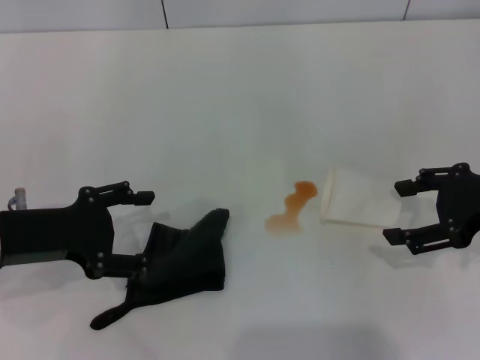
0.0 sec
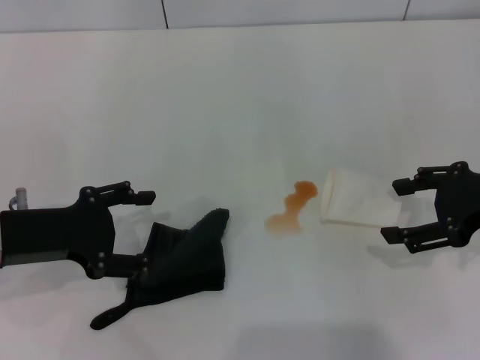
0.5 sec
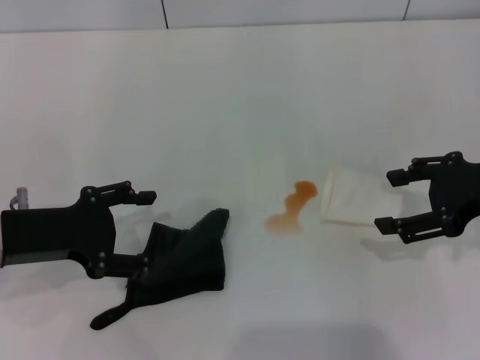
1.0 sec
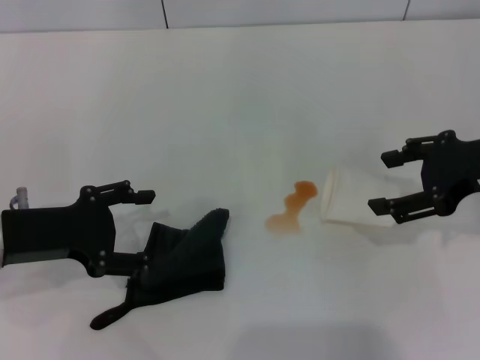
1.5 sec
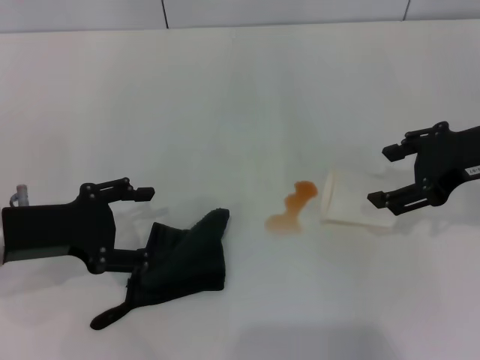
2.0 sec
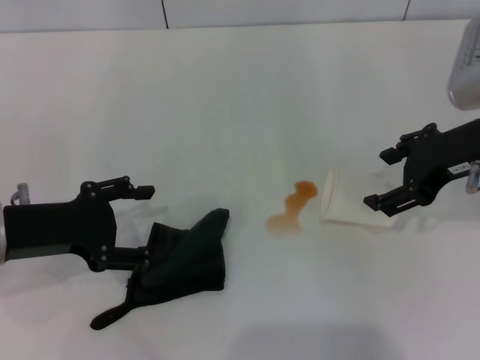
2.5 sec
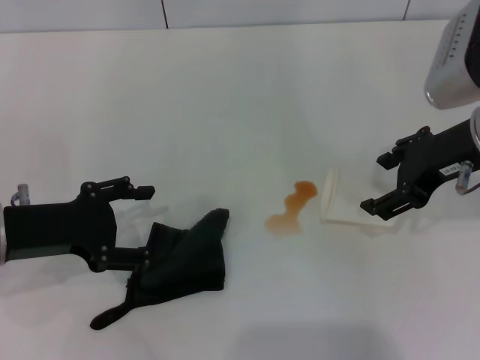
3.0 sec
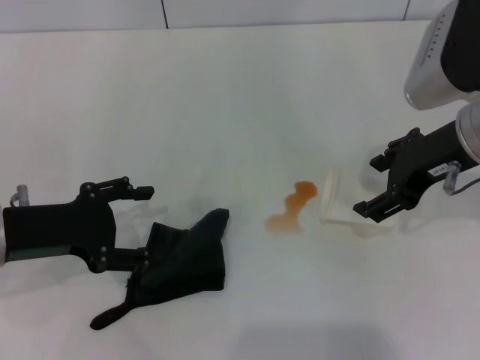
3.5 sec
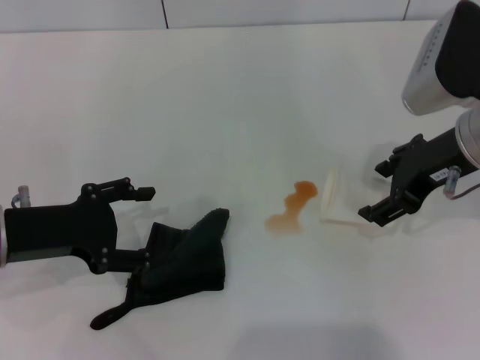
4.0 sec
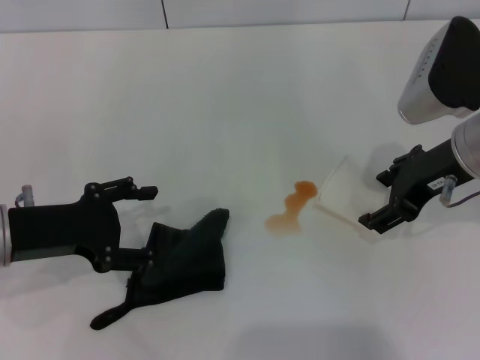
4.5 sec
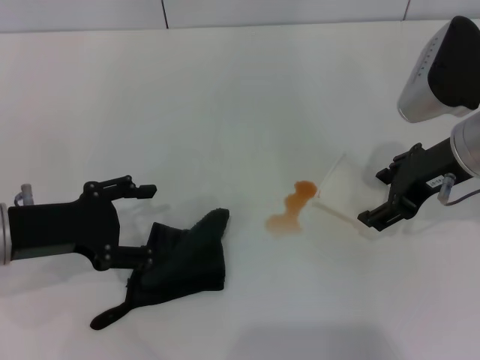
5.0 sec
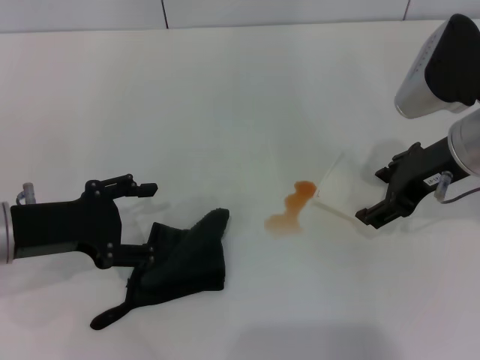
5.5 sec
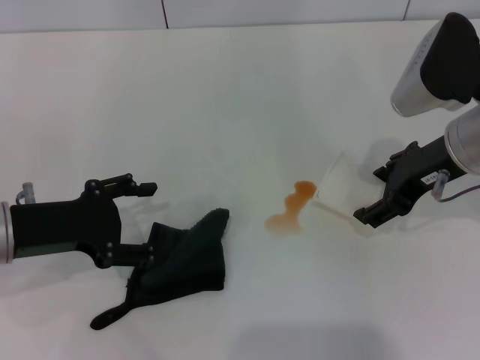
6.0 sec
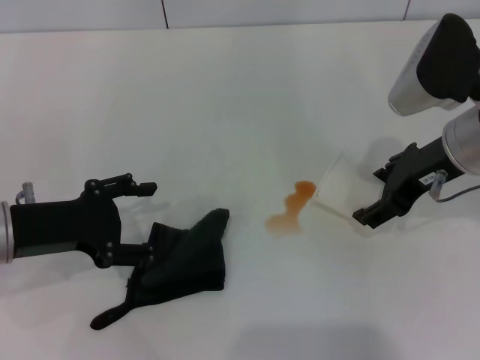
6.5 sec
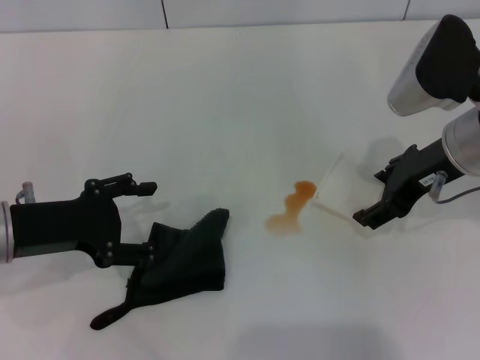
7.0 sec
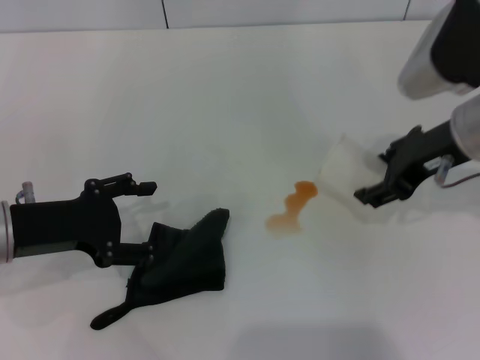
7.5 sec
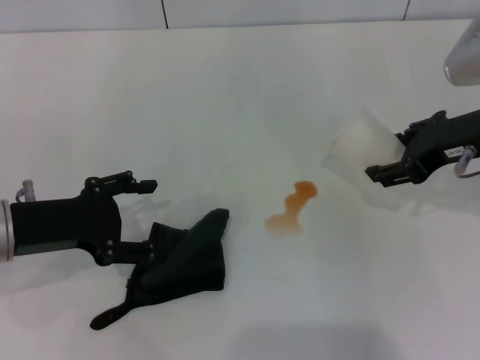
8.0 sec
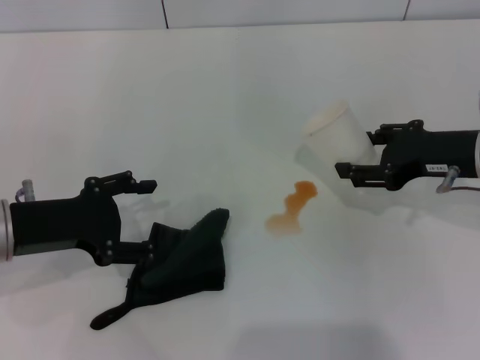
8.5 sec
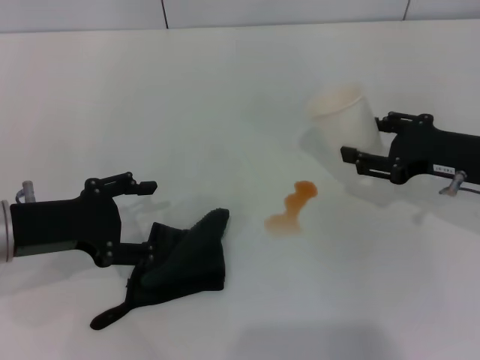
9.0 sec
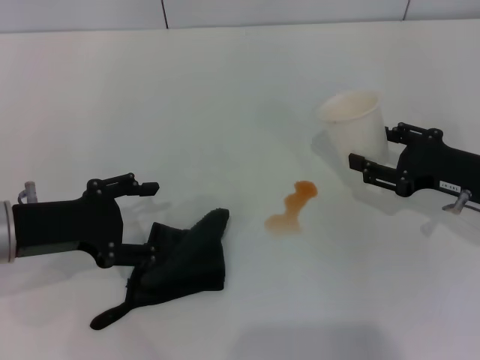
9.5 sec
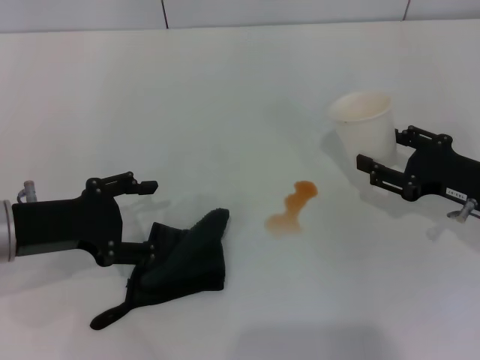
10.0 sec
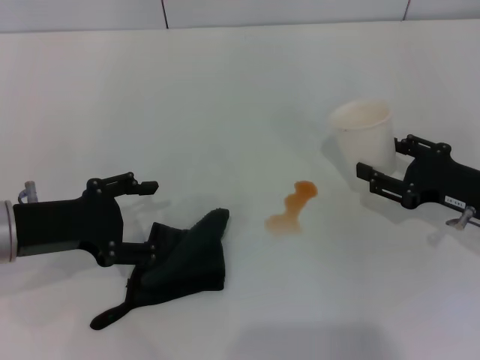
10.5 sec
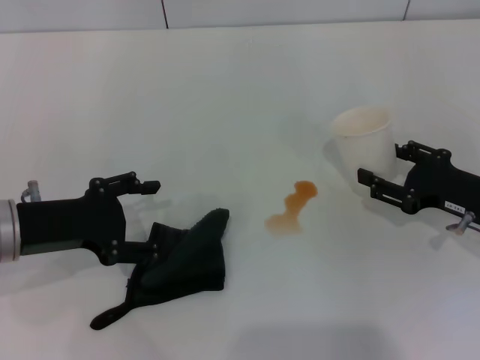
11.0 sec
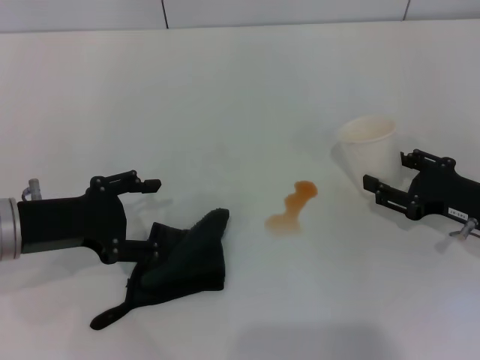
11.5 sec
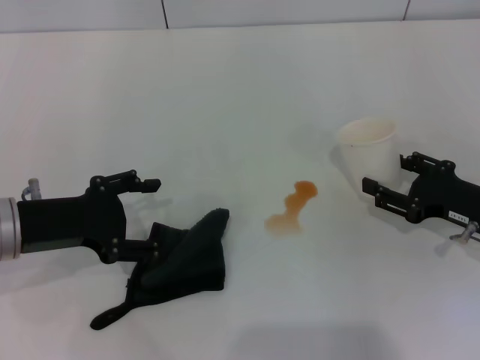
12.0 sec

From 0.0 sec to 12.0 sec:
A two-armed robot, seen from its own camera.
Step, from 0.0 sec to 7.0 sec: Grasp the paper cup with the right gripper.
From 0.0 sec to 2.0 sec: The right gripper changes place by roughly 5 cm.
From 2.0 sec to 6.0 sec: The grippers make only small movements.
From 6.0 sec to 8.0 sec: The right gripper closes up.
From 8.0 sec to 10.0 sec: The right gripper travels downward and to the right by about 15 cm.
From 10.0 sec to 12.0 sec: The grippers stay close to where they were, moving slightly.

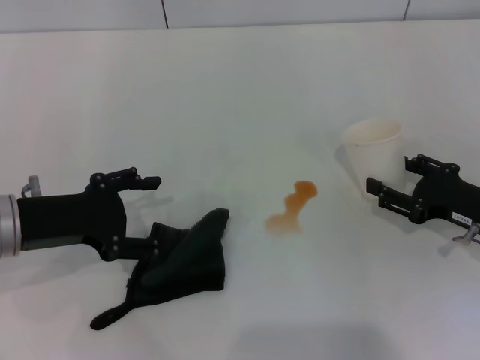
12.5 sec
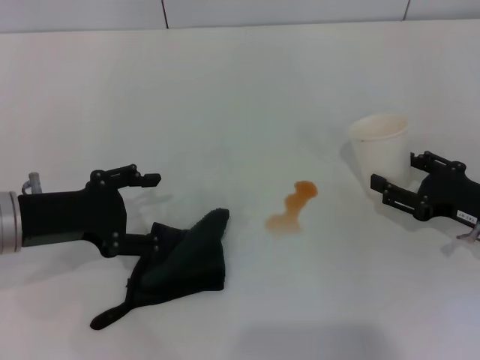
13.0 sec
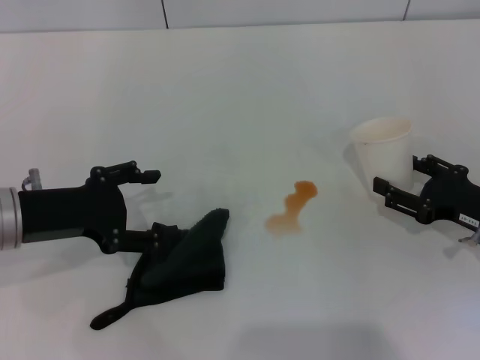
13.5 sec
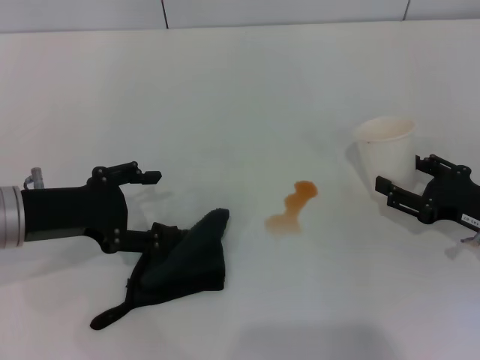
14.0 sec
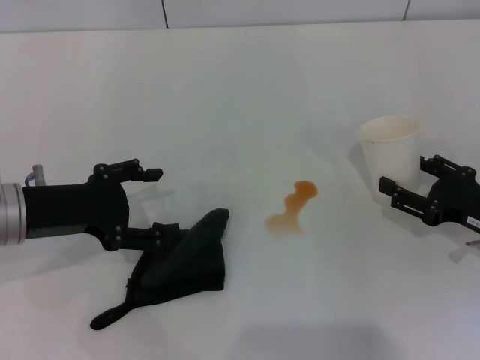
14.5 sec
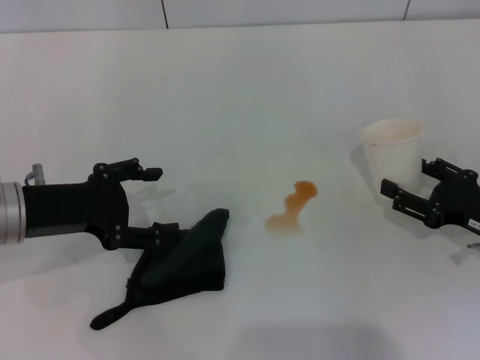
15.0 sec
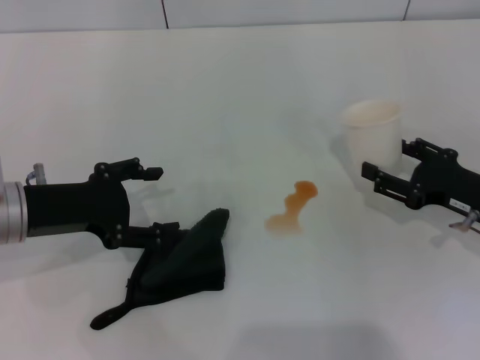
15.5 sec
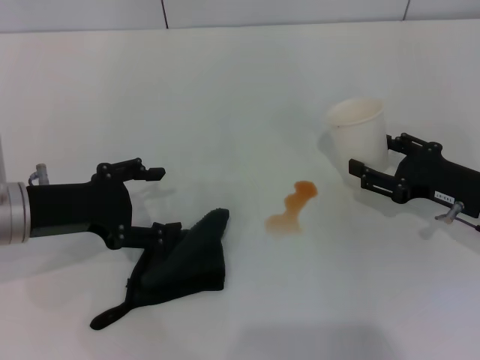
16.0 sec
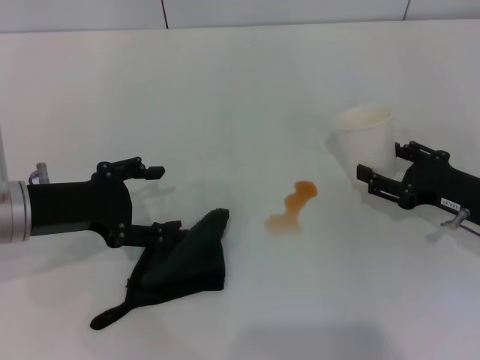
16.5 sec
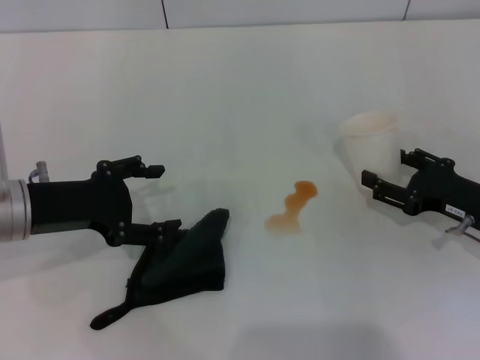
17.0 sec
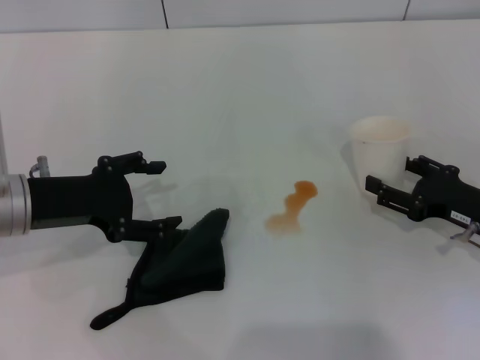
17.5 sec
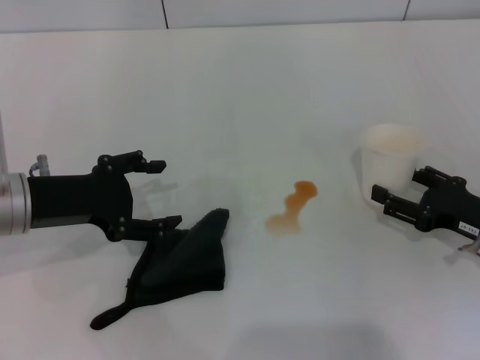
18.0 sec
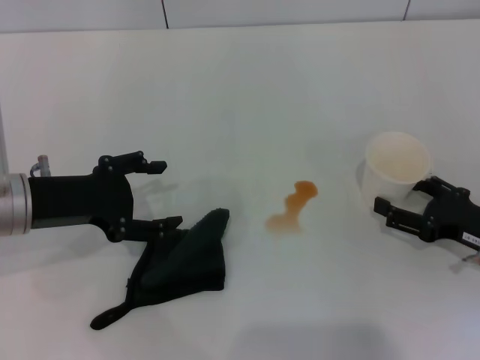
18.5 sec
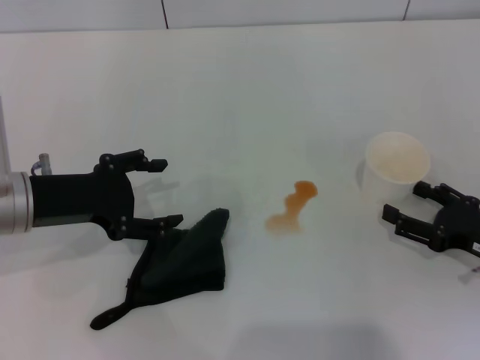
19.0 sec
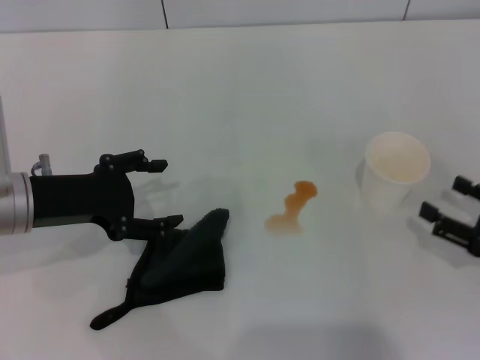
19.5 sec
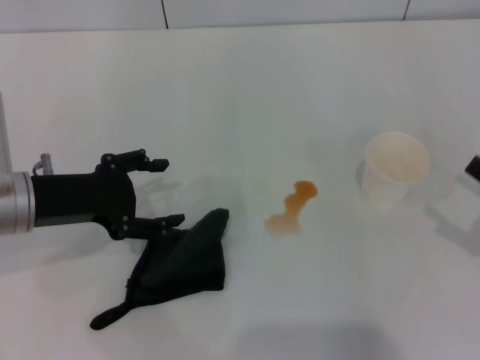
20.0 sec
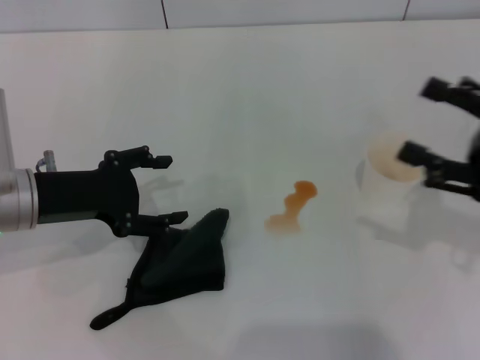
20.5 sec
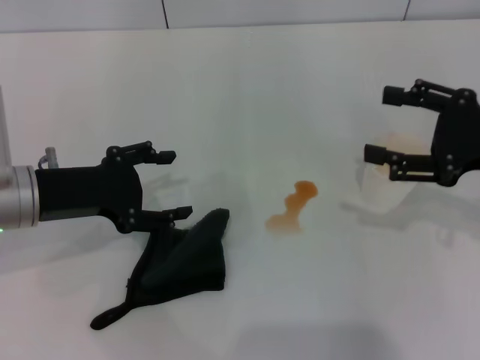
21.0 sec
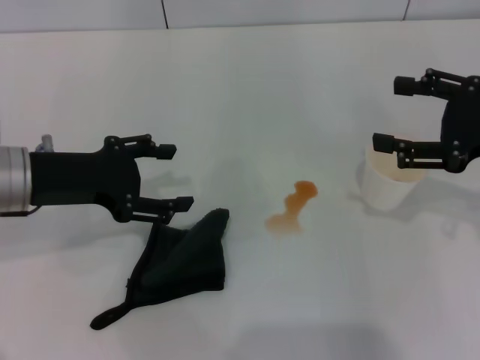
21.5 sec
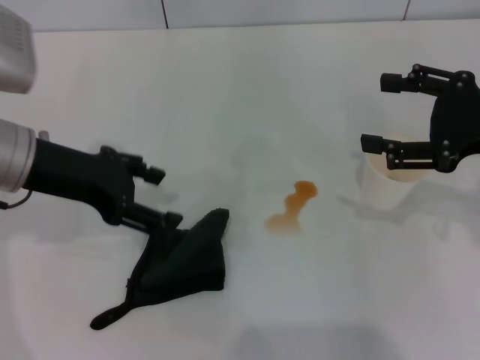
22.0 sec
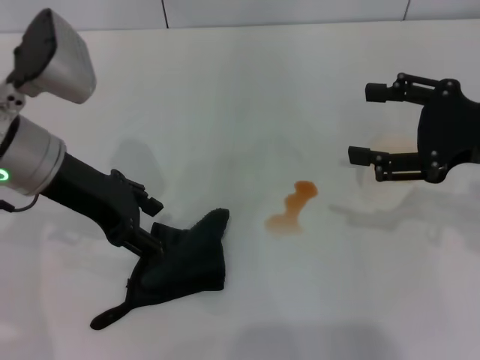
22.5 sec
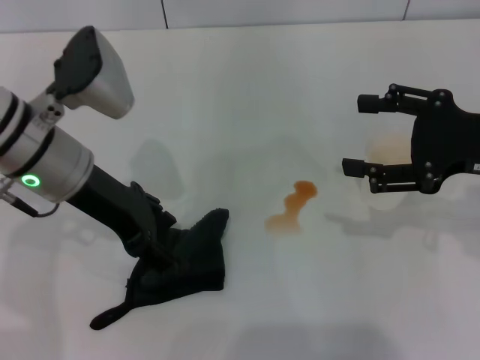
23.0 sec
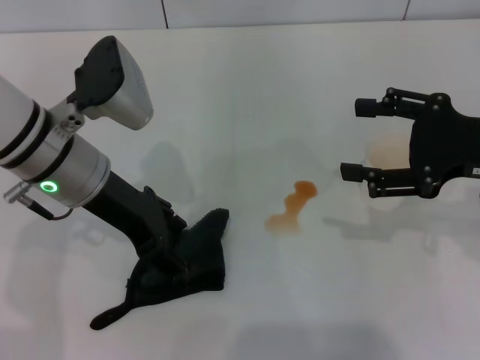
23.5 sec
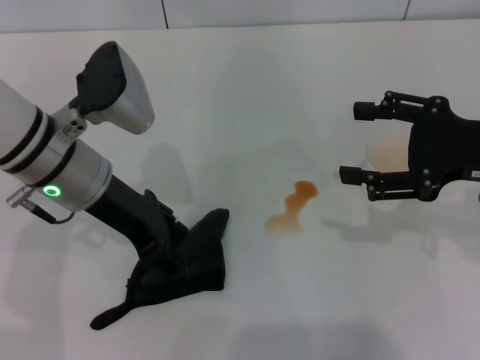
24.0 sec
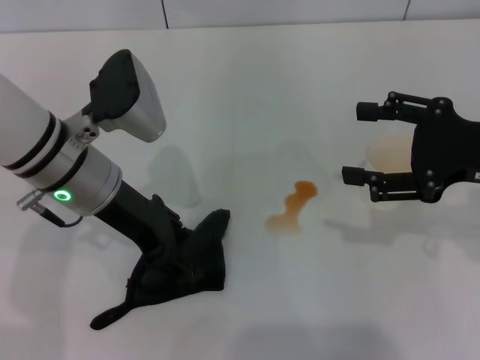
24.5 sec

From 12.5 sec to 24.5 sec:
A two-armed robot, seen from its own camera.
Step, from 12.5 sec to 19.0 sec: Stand the paper cup upright with the right gripper.
From 12.5 sec to 16.5 sec: The grippers make only small movements.
From 16.5 sec to 18.5 sec: The right gripper opens up.
From 18.5 sec to 20.5 sec: The right gripper travels upward by roughly 10 cm.
From 20.5 sec to 22.5 sec: The right gripper moves approximately 5 cm; the left gripper goes approximately 5 cm upward.
From 22.5 sec to 24.5 sec: The left gripper shifts by about 5 cm.

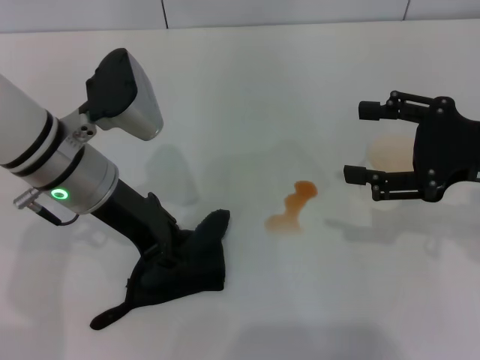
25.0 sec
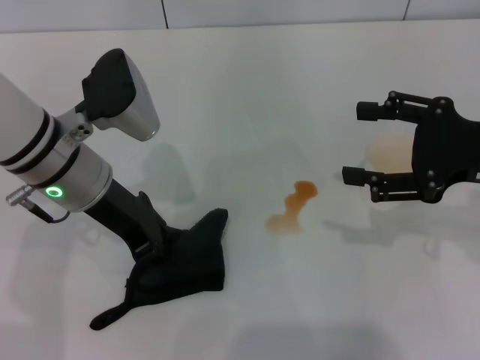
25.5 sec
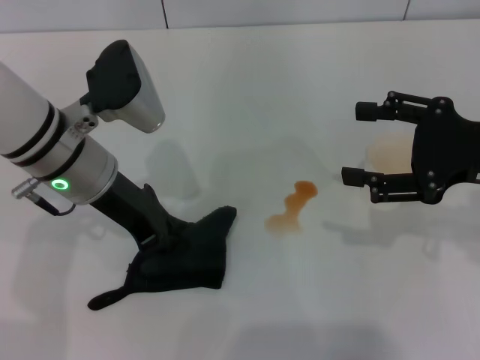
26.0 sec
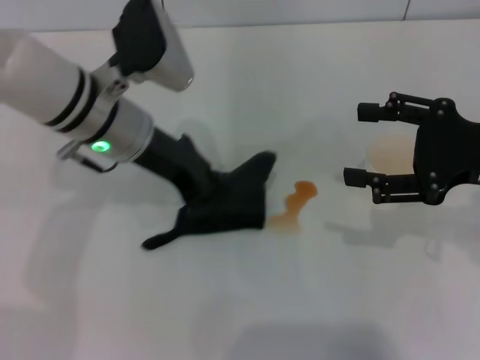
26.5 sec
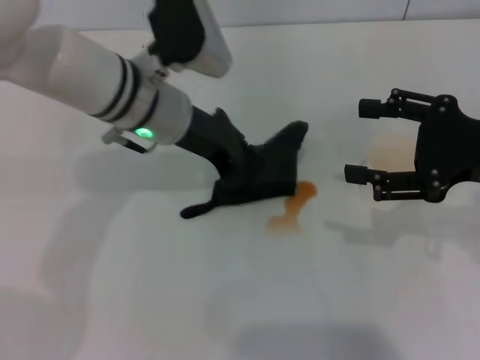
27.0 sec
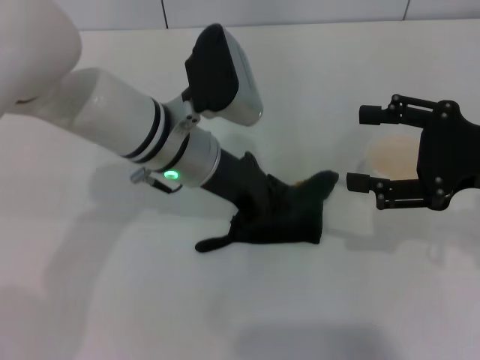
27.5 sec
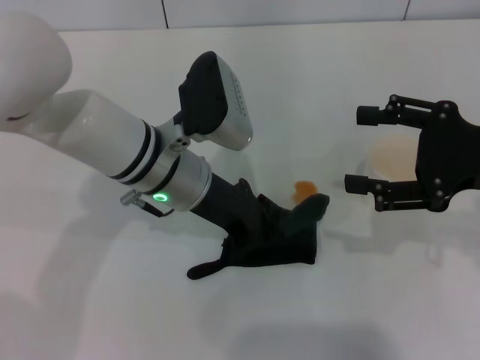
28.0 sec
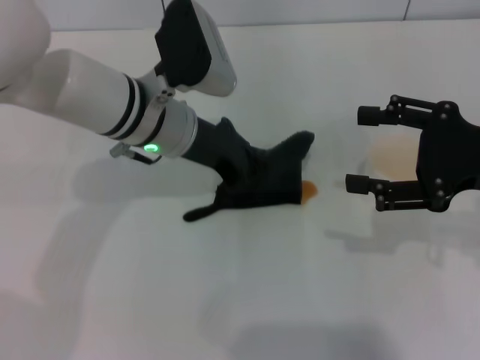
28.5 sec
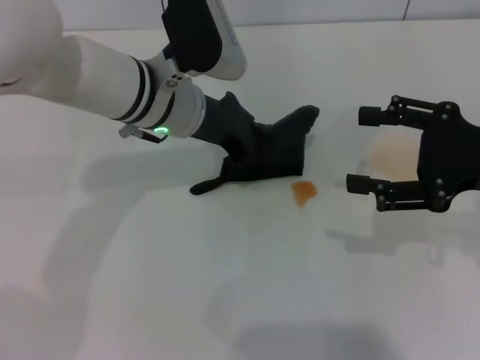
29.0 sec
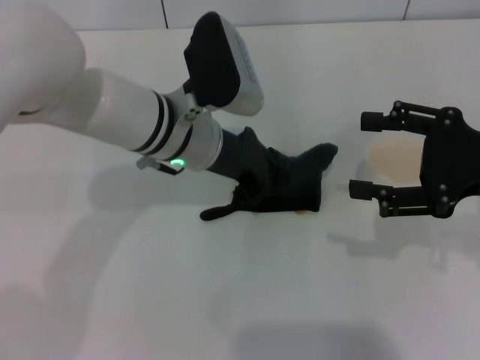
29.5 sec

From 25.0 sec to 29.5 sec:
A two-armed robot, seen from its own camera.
From 25.0 sec to 27.0 sec: The left gripper is displaced to the right by roughly 5 cm, and closes up.
